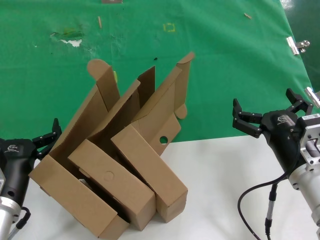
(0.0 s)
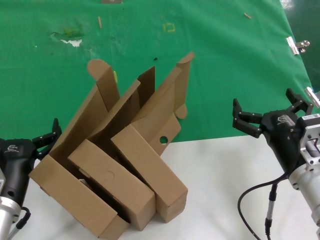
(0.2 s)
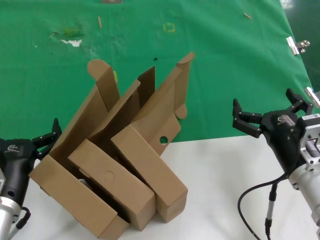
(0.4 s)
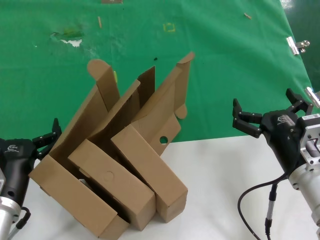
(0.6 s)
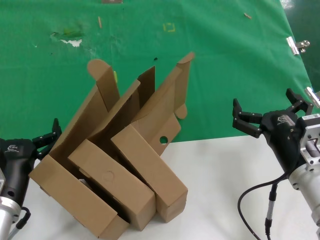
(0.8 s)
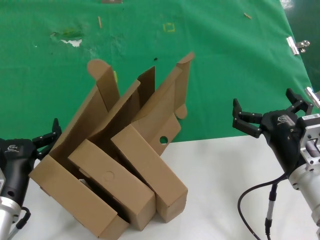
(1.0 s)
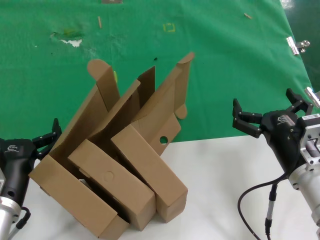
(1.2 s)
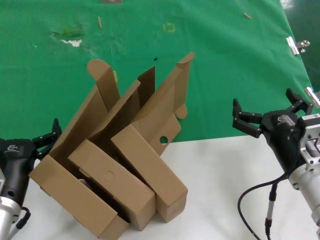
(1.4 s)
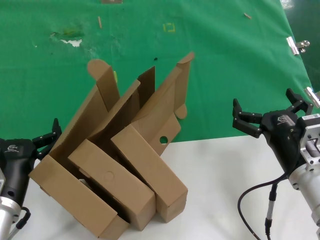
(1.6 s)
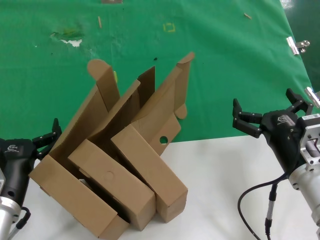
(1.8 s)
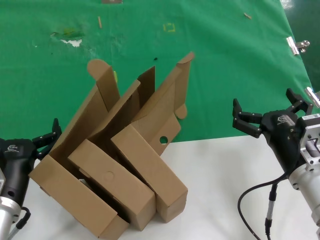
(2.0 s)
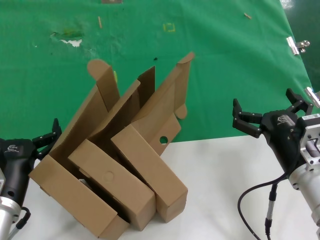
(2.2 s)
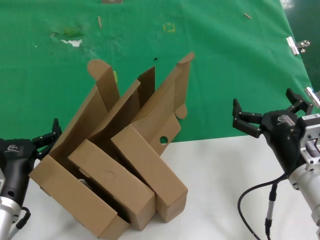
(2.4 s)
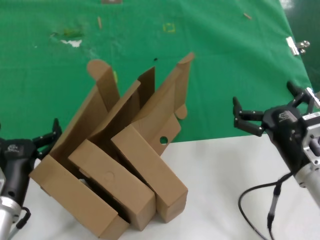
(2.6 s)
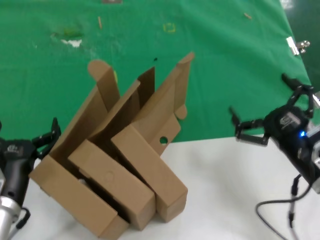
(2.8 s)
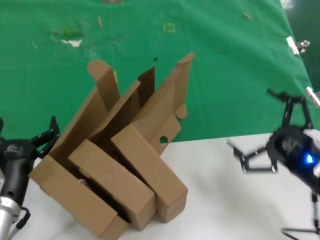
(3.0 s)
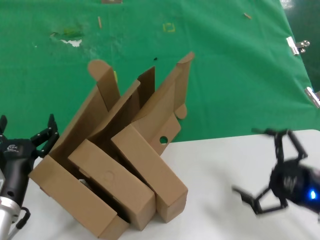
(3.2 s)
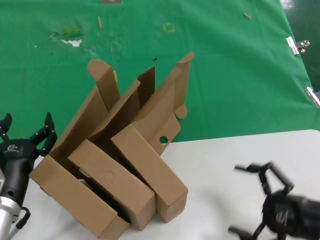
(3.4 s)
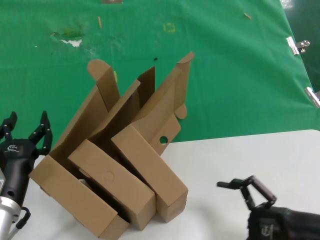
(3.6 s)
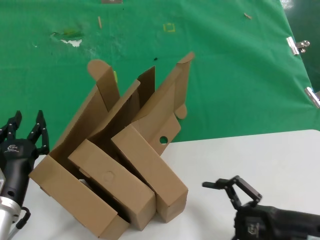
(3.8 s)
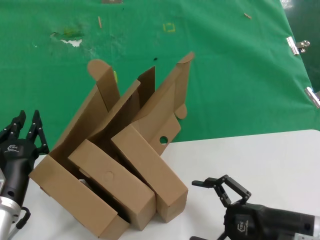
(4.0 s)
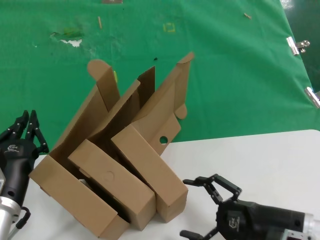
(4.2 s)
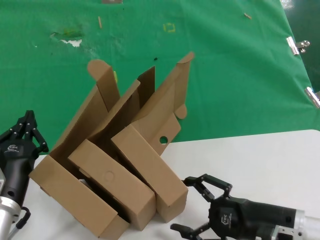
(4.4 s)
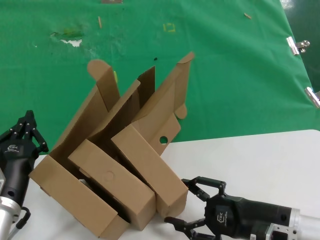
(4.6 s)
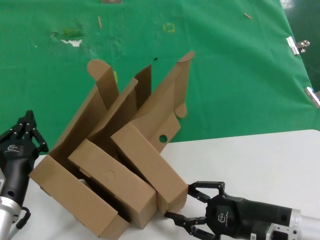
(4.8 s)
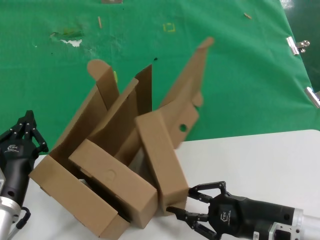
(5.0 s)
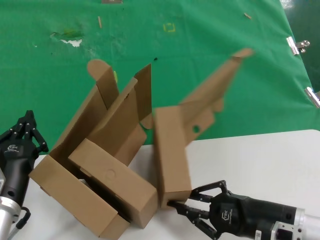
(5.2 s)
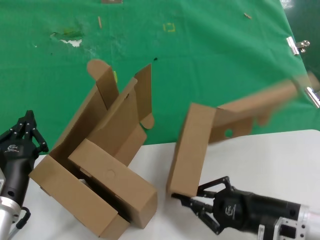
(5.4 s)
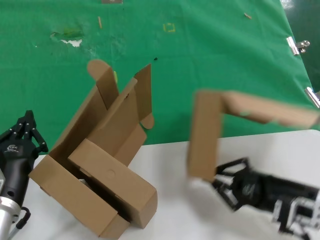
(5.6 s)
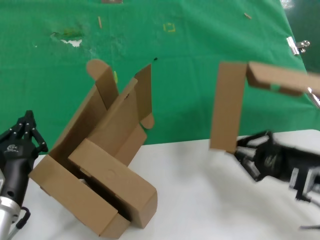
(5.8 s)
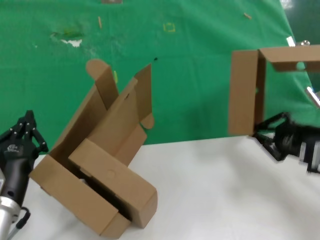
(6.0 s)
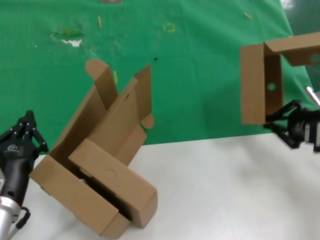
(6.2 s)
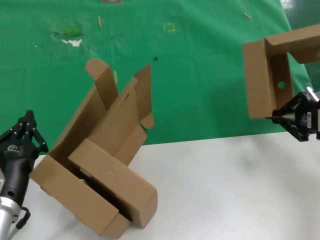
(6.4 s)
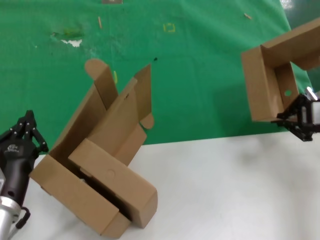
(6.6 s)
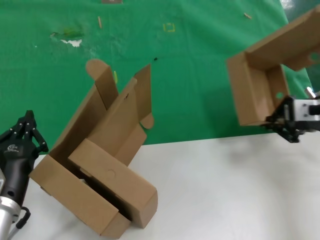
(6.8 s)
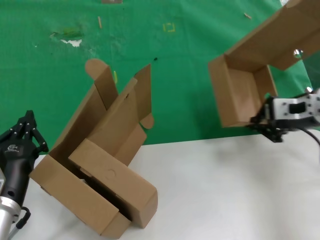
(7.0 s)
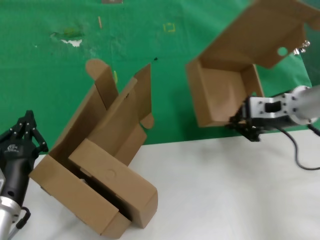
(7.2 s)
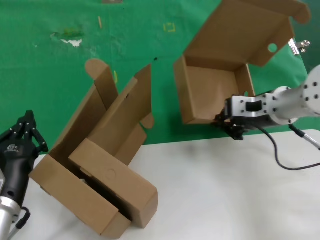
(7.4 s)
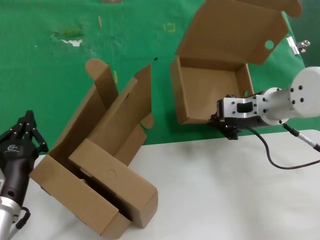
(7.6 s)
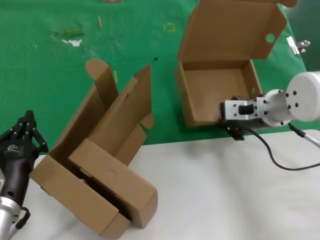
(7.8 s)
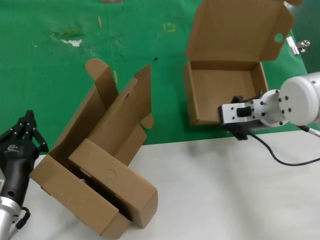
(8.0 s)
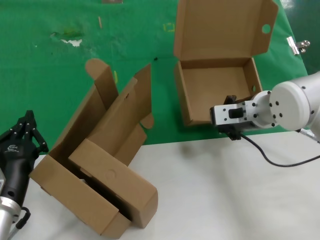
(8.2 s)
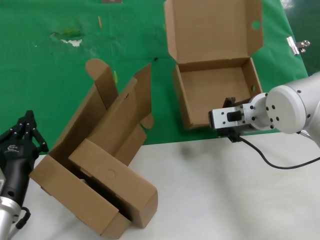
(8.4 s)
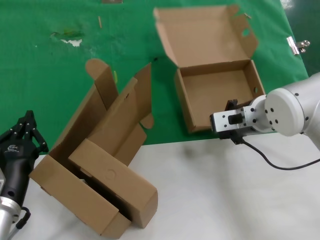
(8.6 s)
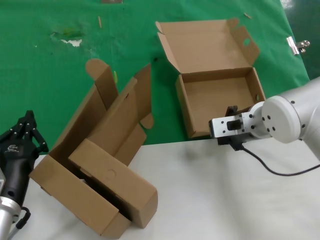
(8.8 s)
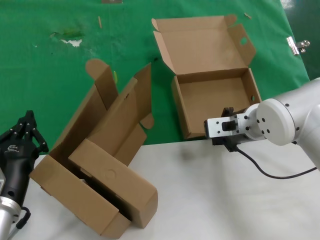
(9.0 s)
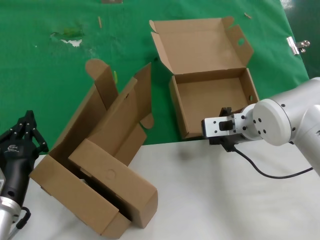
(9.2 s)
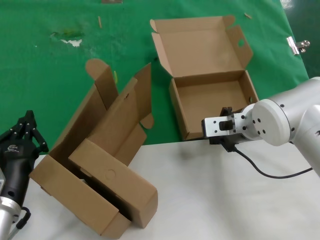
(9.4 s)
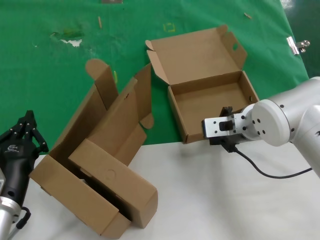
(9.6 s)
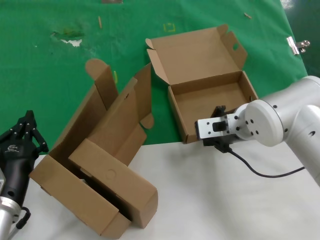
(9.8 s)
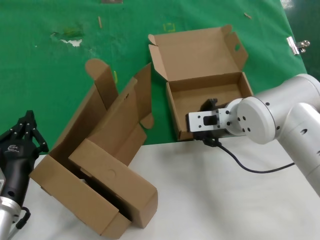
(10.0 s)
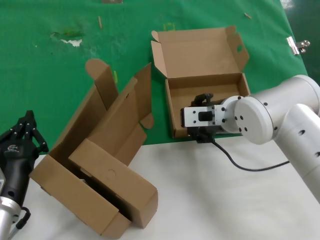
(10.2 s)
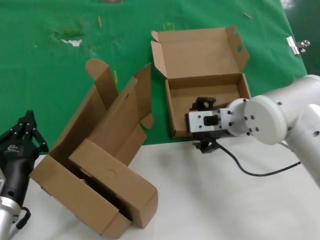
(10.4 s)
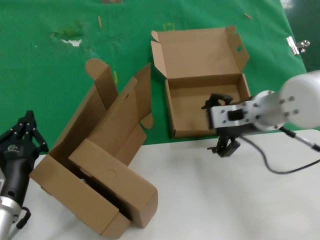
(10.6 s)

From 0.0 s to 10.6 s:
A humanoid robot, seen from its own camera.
Task of the whole recording: pick up the paper box and put it at the back.
Step, from 0.0 s to 5.2 s: Grasp the paper box.
Step, from 5.4 s to 10.2 s: Place the paper box on the table.
From 0.0 s to 1.6 s: The two hands keep their place.
From 1.6 s to 3.0 s: The right hand is displaced to the right by roughly 5 cm.
From 3.0 s to 4.6 s: The right hand is displaced downward and to the left by roughly 10 cm.
From 4.6 s to 6.0 s: The right hand moves to the right, upward and forward, roughly 15 cm.
From 6.0 s to 7.6 s: The right hand heads forward and to the left, covering roughly 20 cm.
From 7.6 s to 9.0 s: The right hand changes place by approximately 5 cm.
From 9.0 s to 10.6 s: There are only small adjustments of the hands.

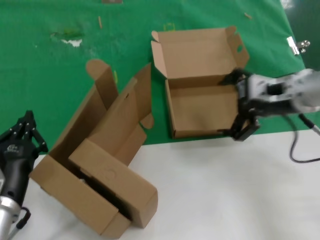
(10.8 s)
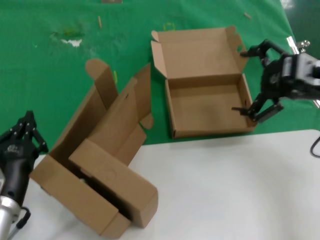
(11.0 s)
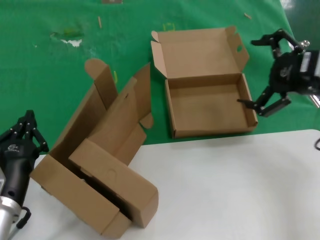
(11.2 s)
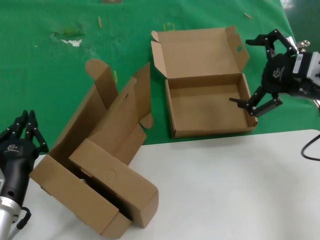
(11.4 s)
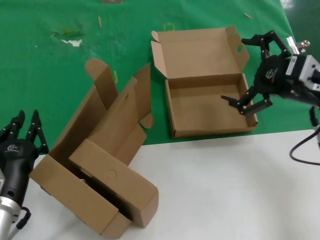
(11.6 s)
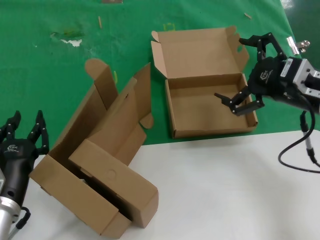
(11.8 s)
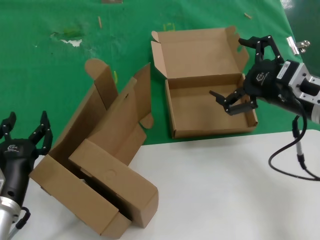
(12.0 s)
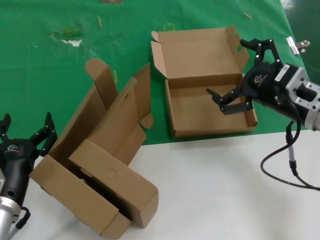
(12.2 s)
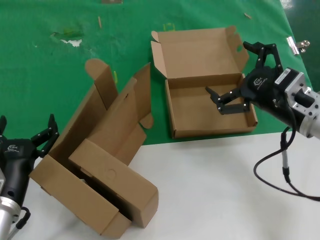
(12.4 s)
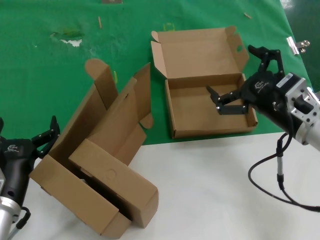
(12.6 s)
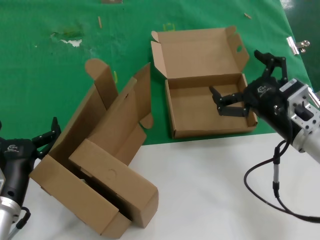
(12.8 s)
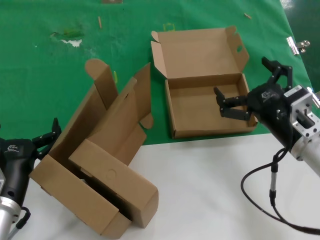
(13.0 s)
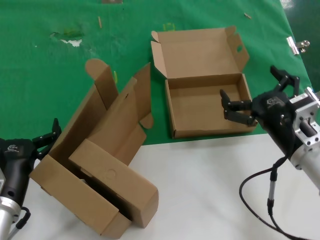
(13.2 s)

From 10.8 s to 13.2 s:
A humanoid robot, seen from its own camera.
Task of the whole recording: pick up the paper box and put it at the back.
From 10.8 s to 12.0 s: The right hand goes some 5 cm to the right.
From 12.0 s to 13.2 s: The right hand is displaced downward and backward by approximately 10 cm.
